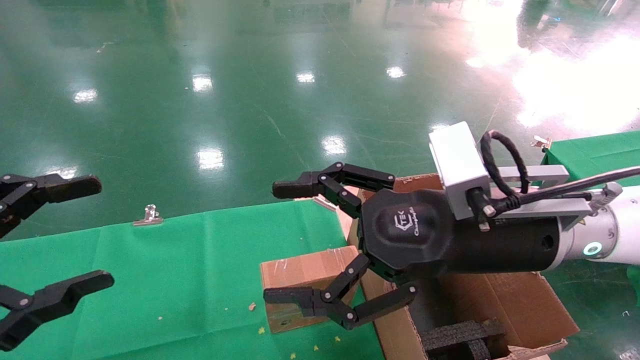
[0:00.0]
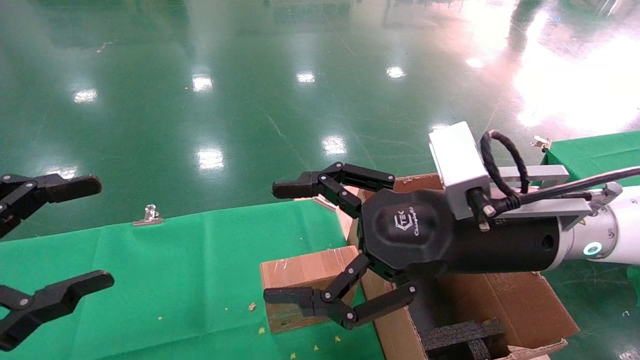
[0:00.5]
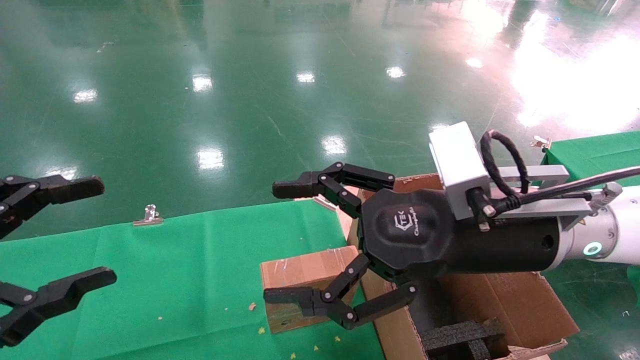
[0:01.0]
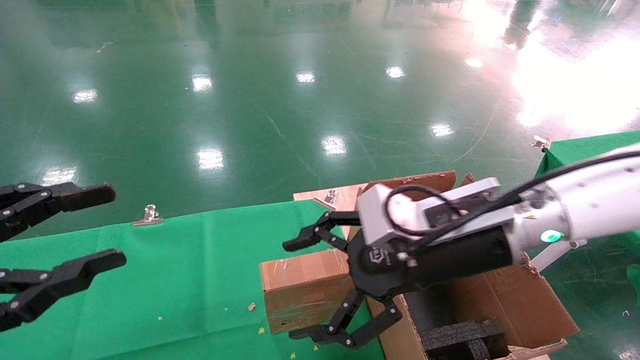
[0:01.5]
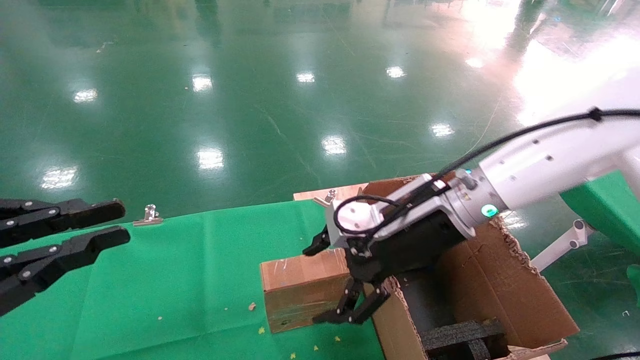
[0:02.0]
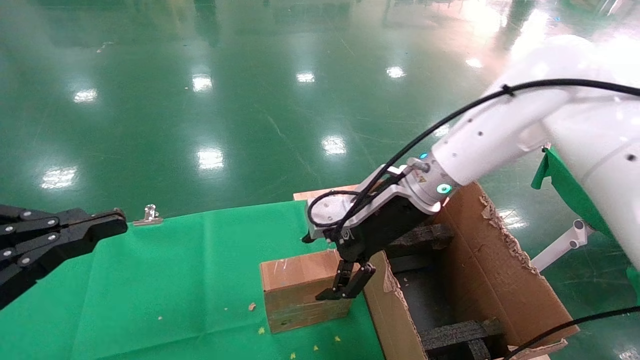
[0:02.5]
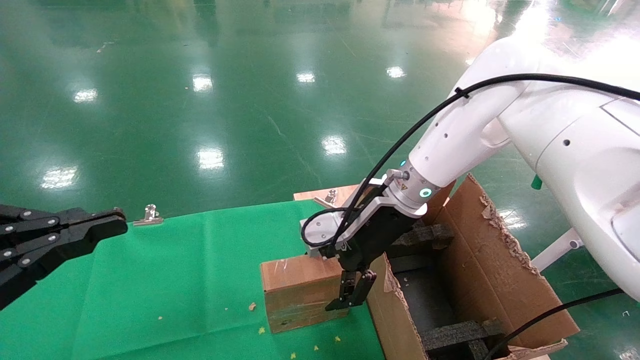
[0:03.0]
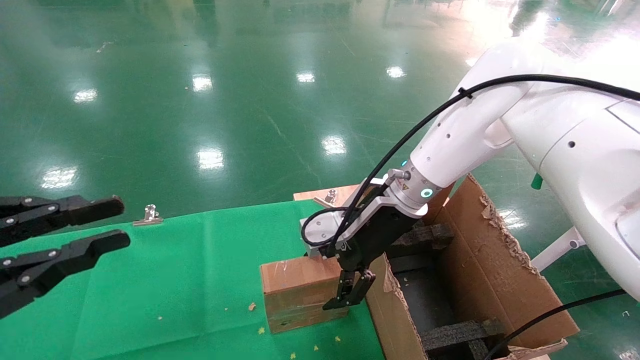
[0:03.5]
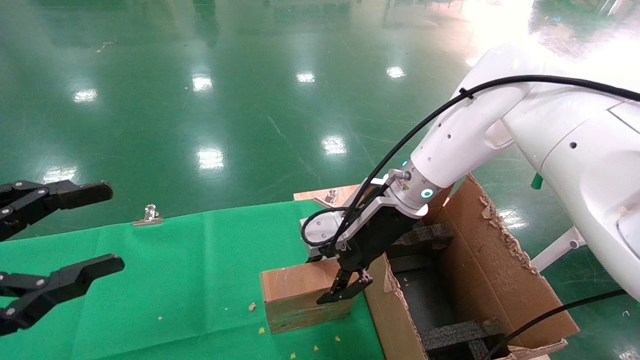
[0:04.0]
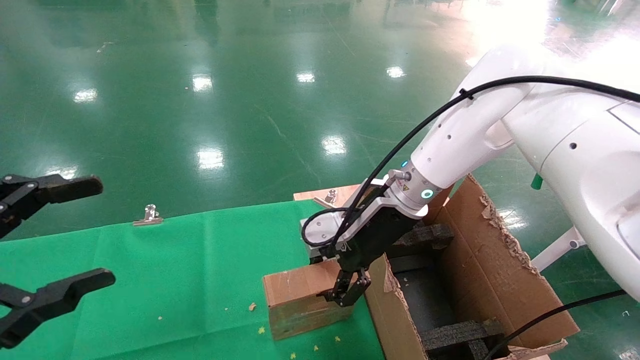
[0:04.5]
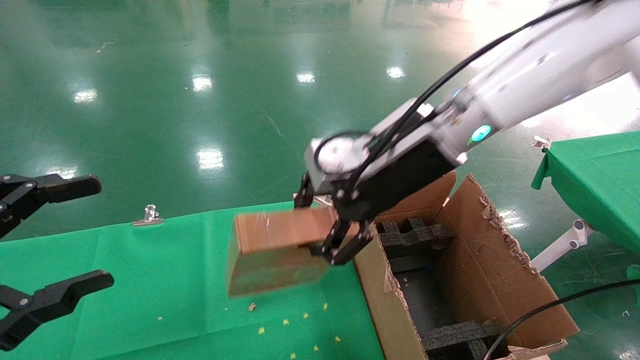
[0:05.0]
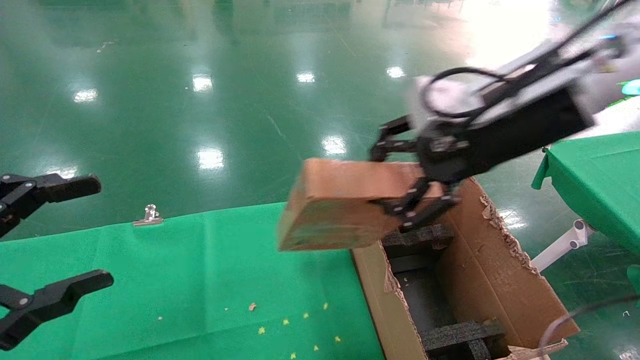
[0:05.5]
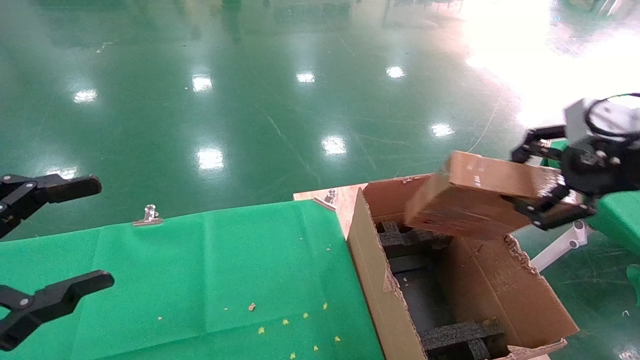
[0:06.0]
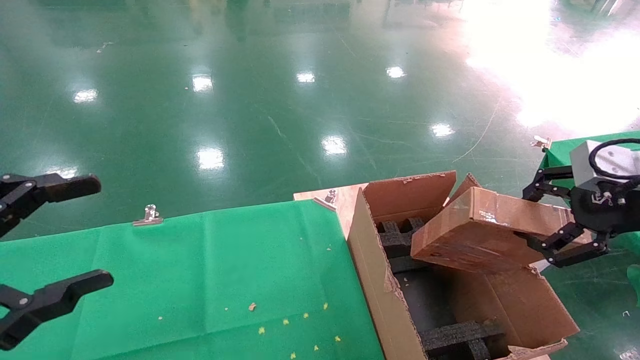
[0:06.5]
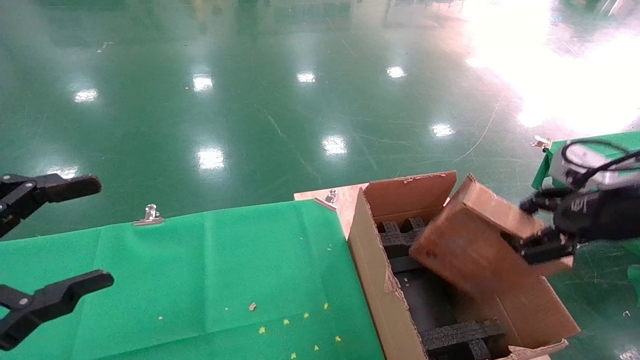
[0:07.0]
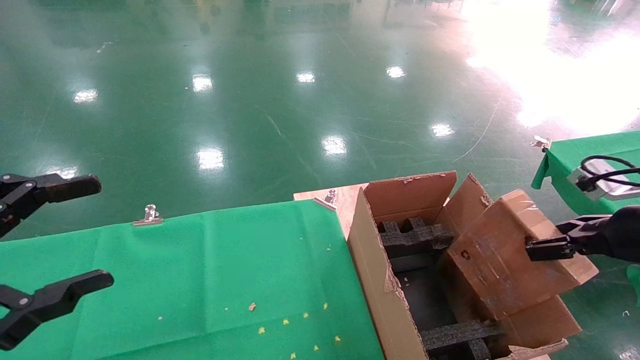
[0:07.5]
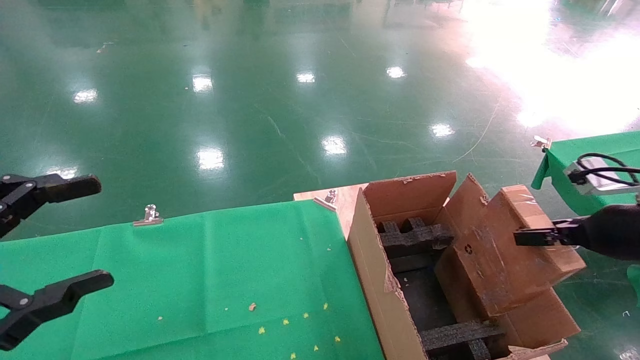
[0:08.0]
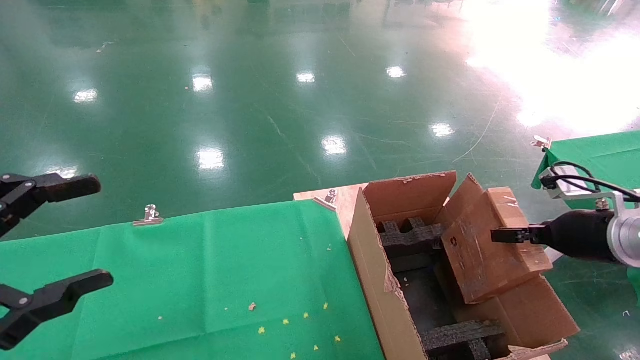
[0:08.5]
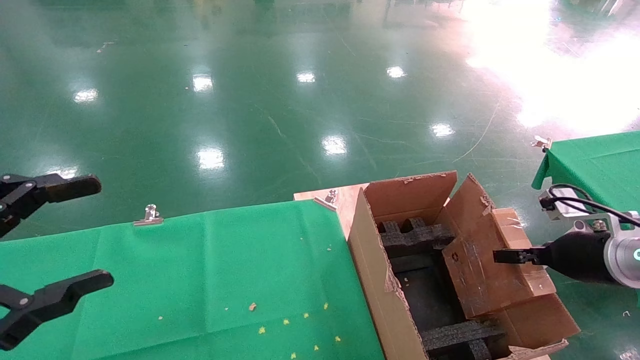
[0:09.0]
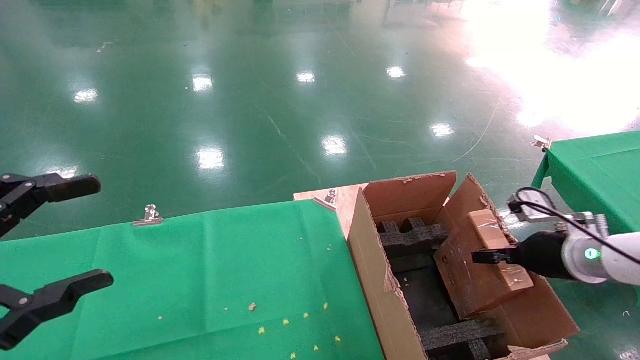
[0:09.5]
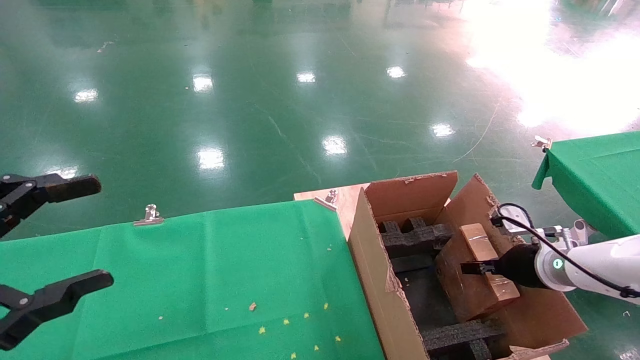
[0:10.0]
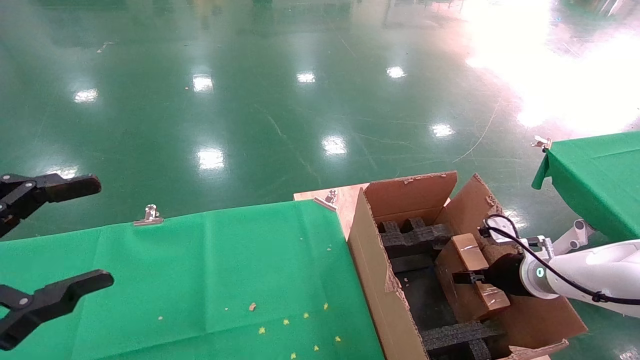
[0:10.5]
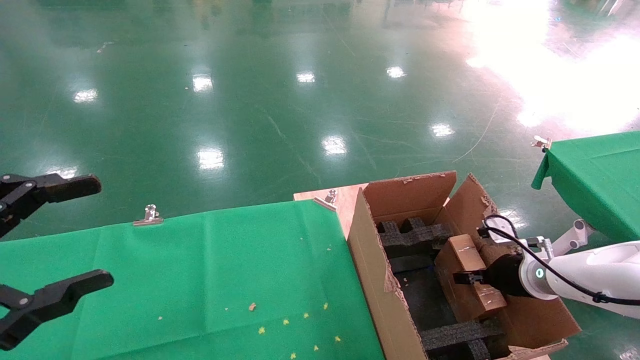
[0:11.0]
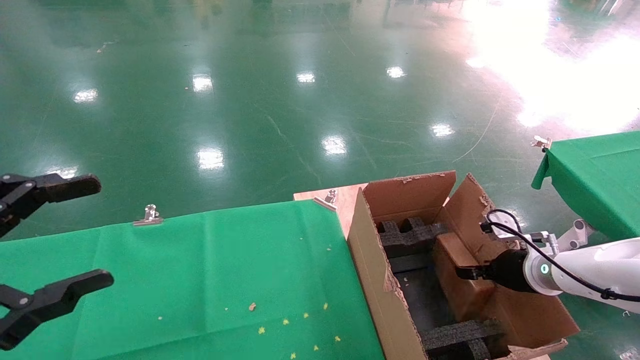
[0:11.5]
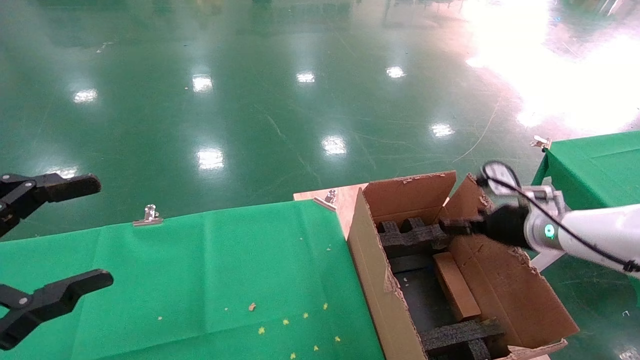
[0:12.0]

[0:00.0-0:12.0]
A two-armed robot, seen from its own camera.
Task of the whole recording: using a robotic arm to pick up a cardboard box and palace it the carton.
Step, 0:01.5 to 0:04.0: Pick up the mouse and the power cord paper box.
0:00.0 to 0:02.0: The left gripper closes its fingers. The right gripper is displaced forward by roughly 10 cm.
0:02.0 to 0:04.0: The right gripper is displaced forward by some 5 cm, and closes.
0:04.0 to 0:06.0: The left gripper opens up; the right gripper shifts approximately 35 cm to the right, backward and upward, and closes up.
0:06.0 to 0:08.0: The right gripper goes about 15 cm downward.
0:08.0 to 0:10.0: The right gripper is displaced downward and forward by roughly 15 cm.
0:10.0 to 0:12.0: The right gripper moves upward, approximately 5 cm, and opens up.

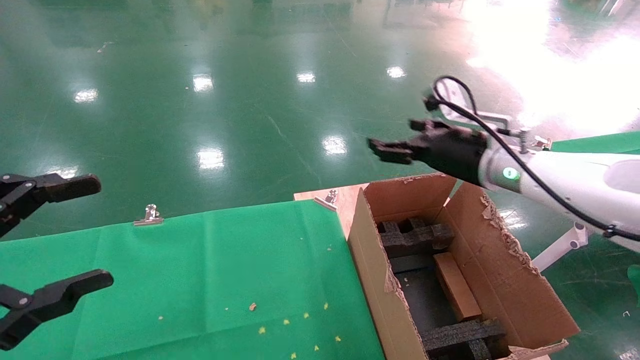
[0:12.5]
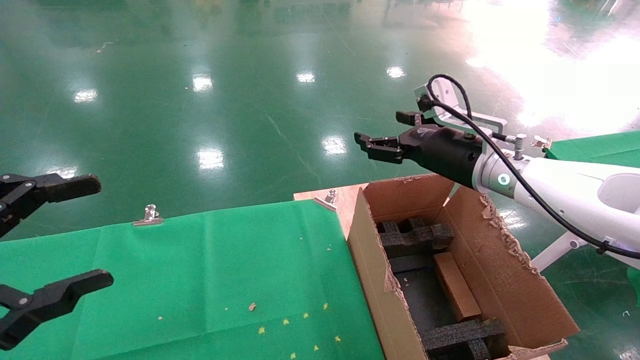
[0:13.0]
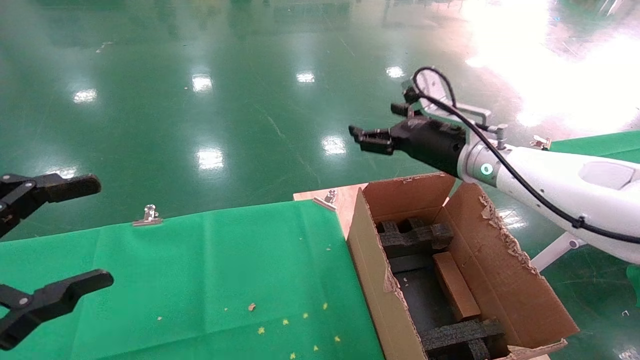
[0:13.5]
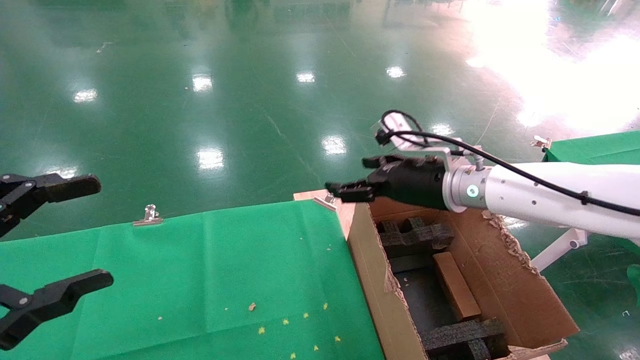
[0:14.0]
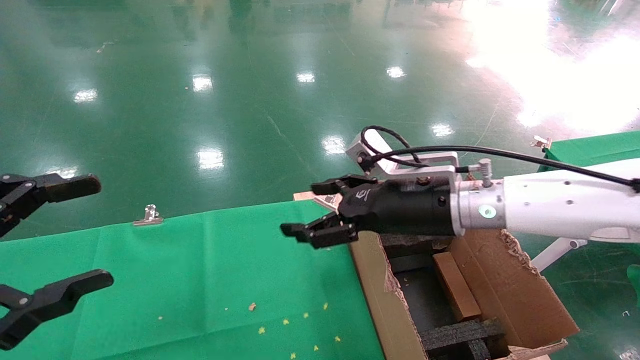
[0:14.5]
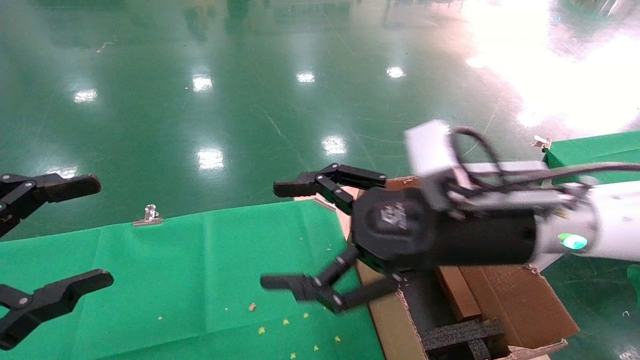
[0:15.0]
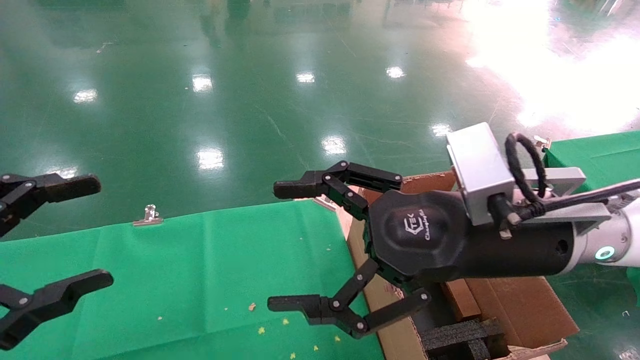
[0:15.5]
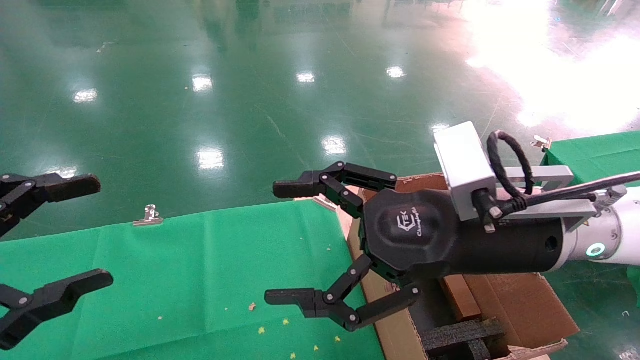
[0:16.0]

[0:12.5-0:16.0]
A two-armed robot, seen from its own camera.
Task of the whole recording: using a robotic arm to pick up a cardboard box and palace it the carton.
0:12.5 to 0:14.5: The right gripper shifts some 10 cm to the left and backward.
0:14.5 to 0:16.0: The right gripper moves backward, about 10 cm.

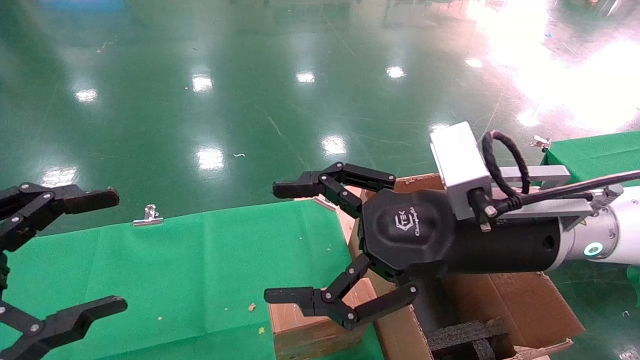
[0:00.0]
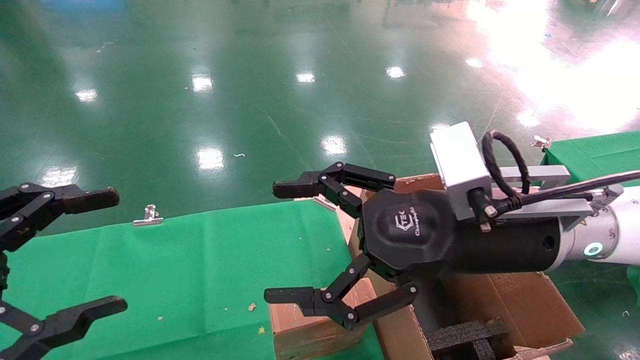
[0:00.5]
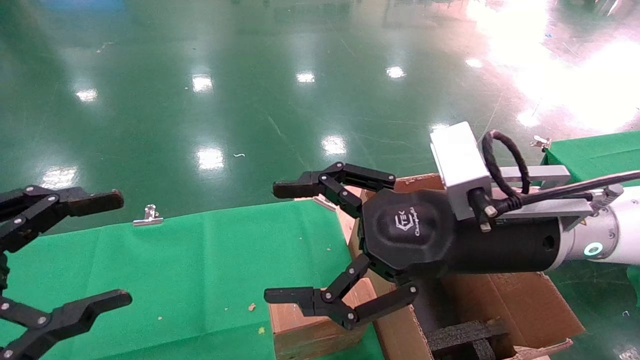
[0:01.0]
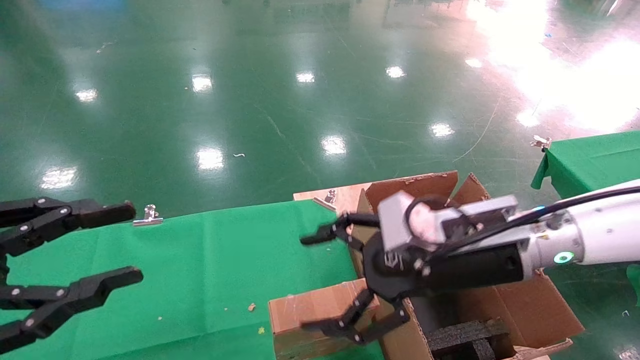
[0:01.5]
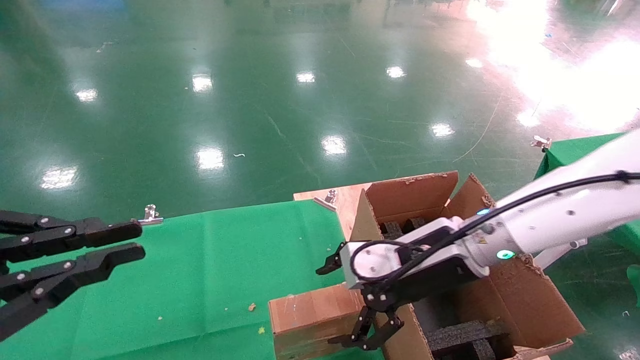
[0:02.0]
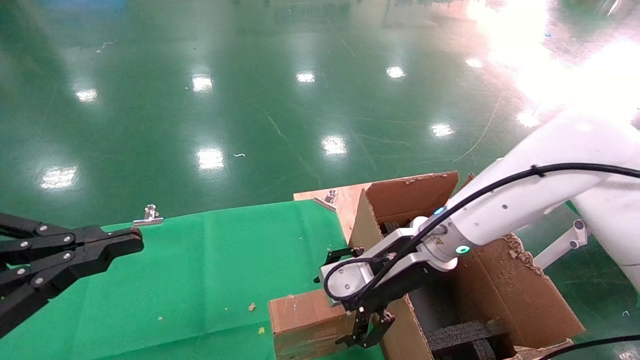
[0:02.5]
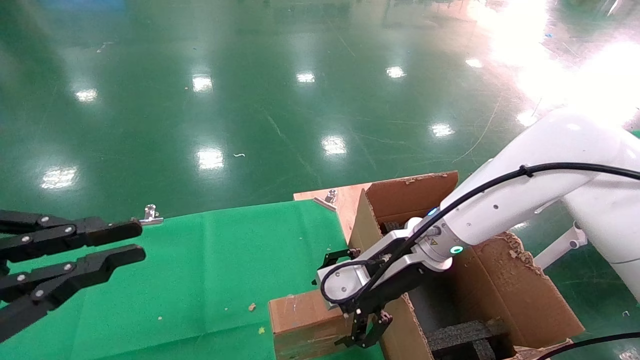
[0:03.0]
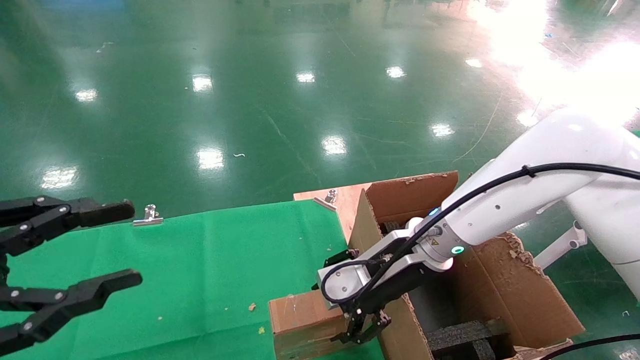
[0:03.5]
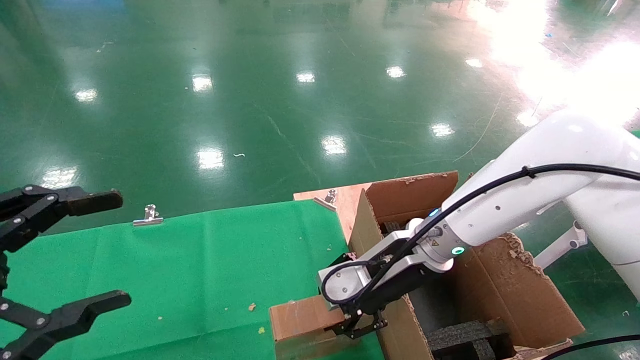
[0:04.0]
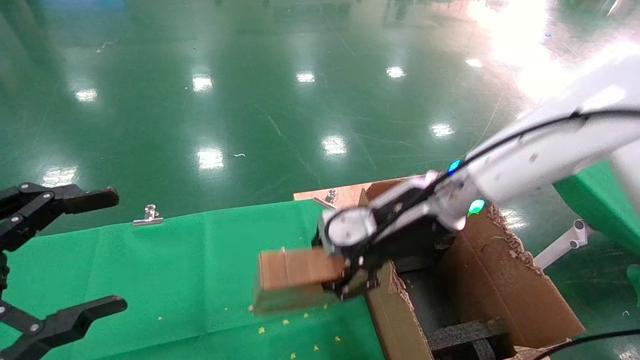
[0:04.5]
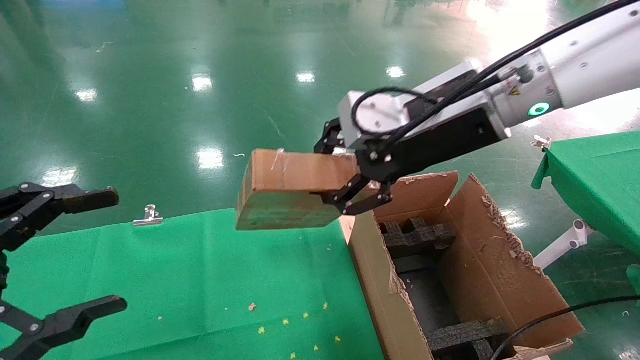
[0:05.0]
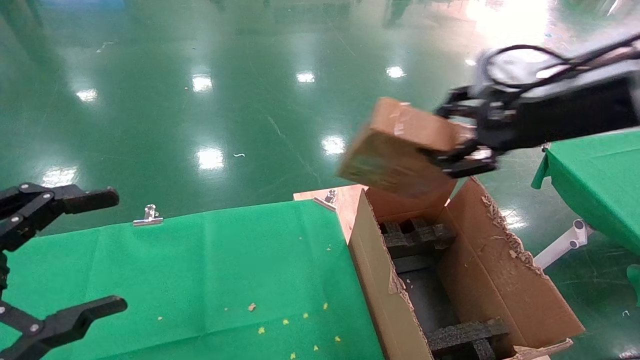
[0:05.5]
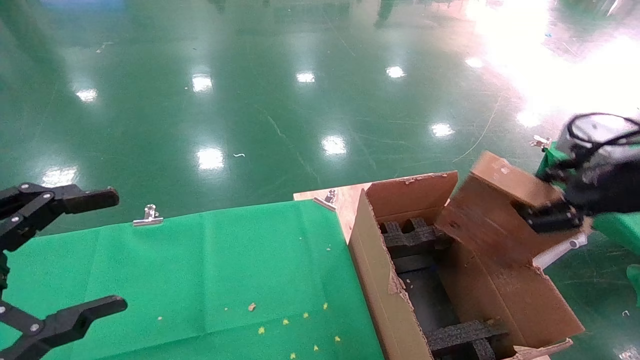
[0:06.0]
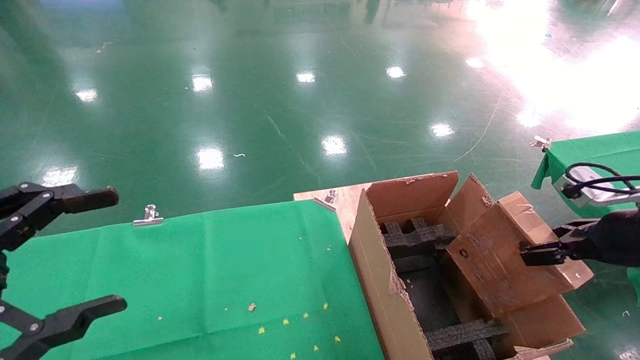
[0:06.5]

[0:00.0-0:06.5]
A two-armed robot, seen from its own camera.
Task of the whole recording: using a robotic arm to pick up a cardboard box and palace it the carton.
Step, 0:01.5 to 0:04.0: Pick up the mouse and the power cord paper box.
0:00.0 to 0:02.0: The left gripper closes its fingers, while the right gripper heads forward and downward, covering about 10 cm.
0:02.0 to 0:04.5: The left gripper opens its fingers; the right gripper moves upward, approximately 5 cm, and closes up.
0:04.5 to 0:06.5: The right gripper goes roughly 25 cm to the right.
